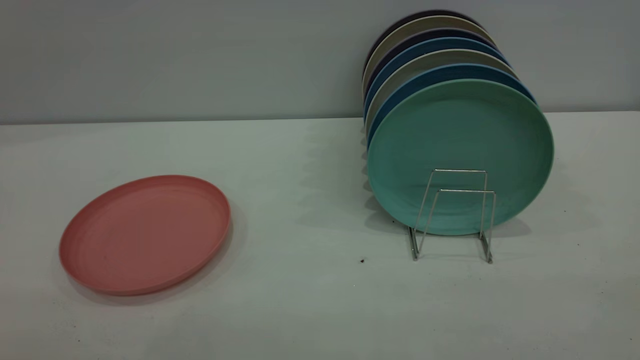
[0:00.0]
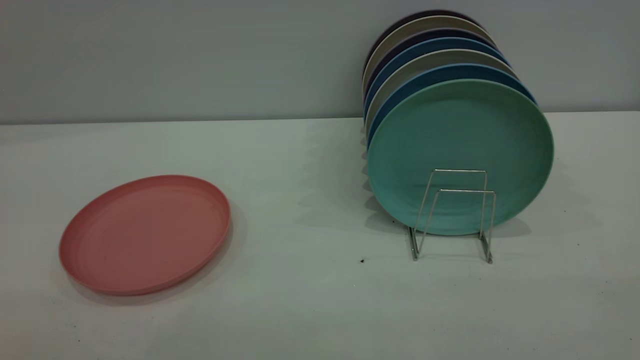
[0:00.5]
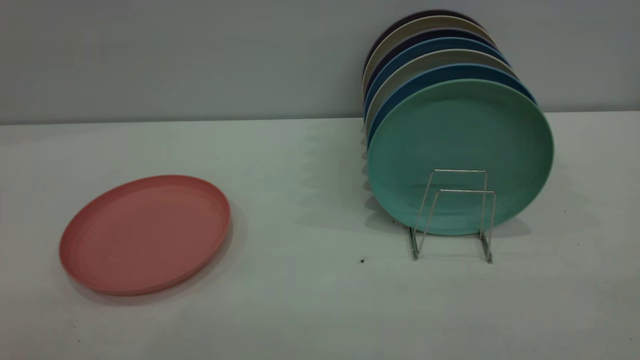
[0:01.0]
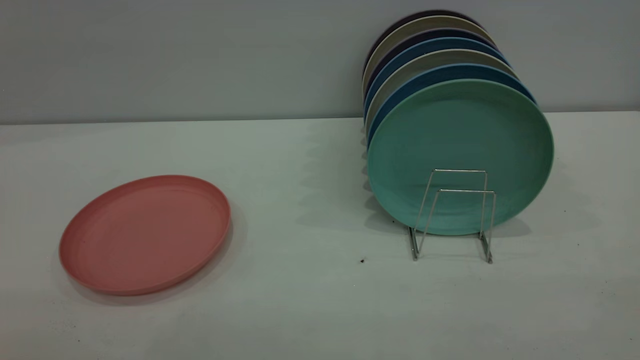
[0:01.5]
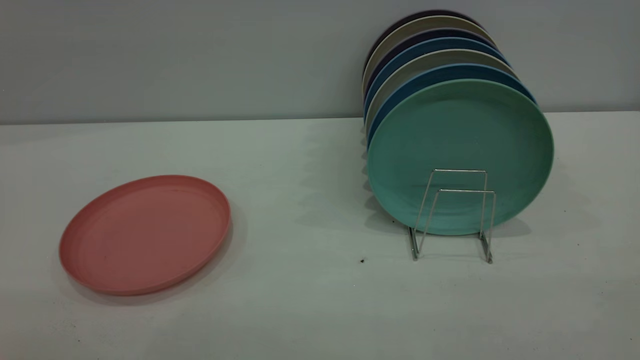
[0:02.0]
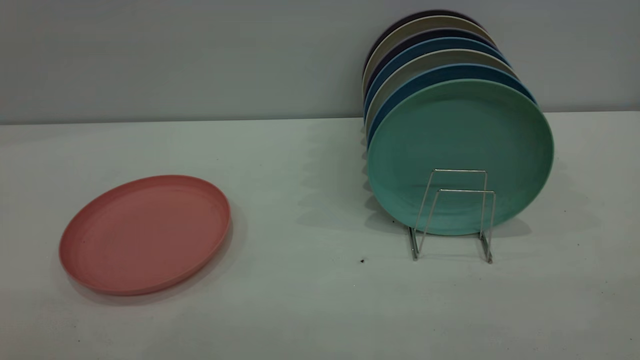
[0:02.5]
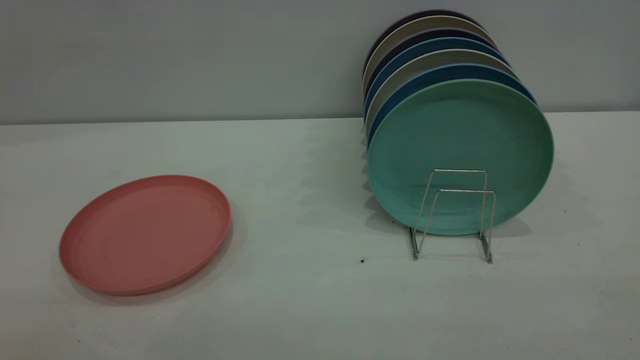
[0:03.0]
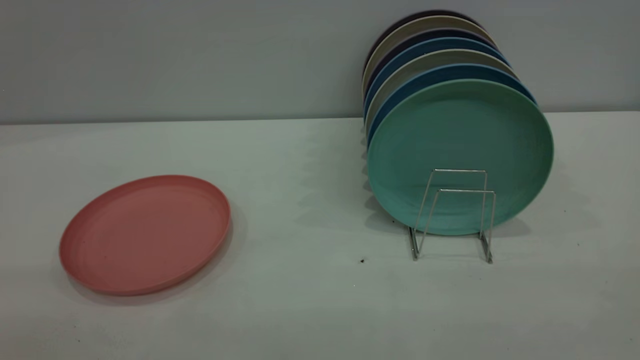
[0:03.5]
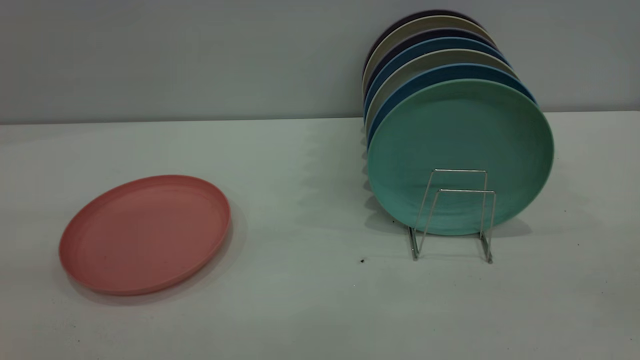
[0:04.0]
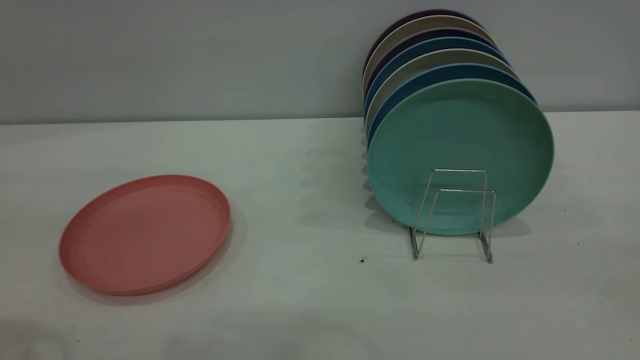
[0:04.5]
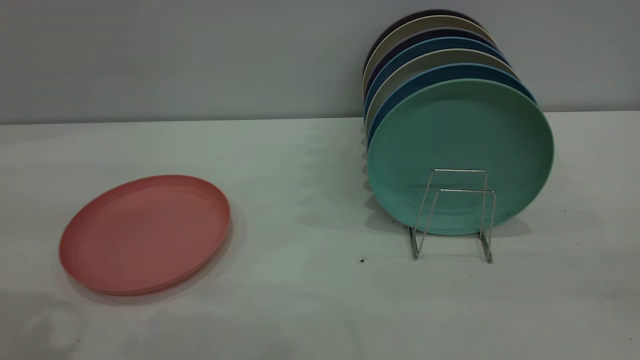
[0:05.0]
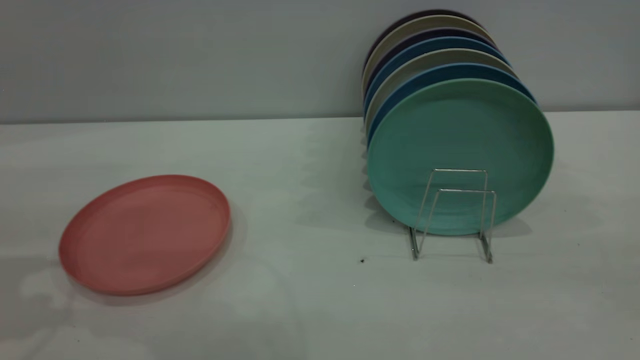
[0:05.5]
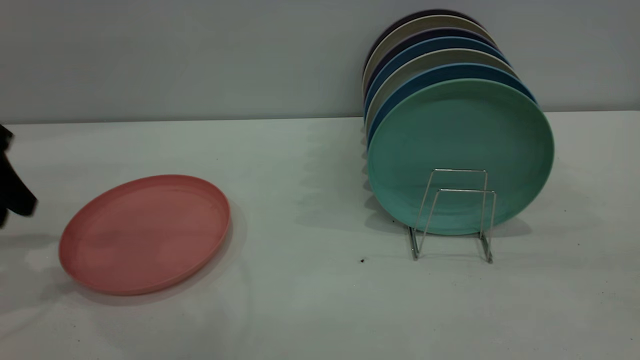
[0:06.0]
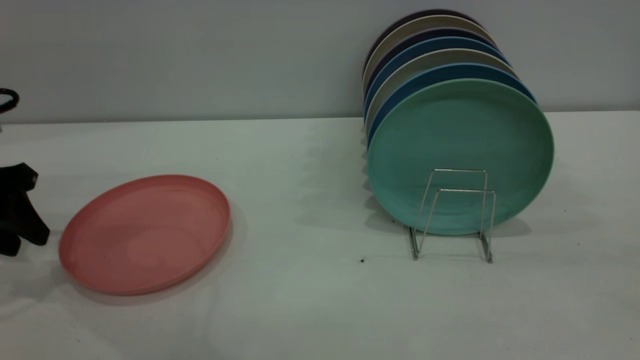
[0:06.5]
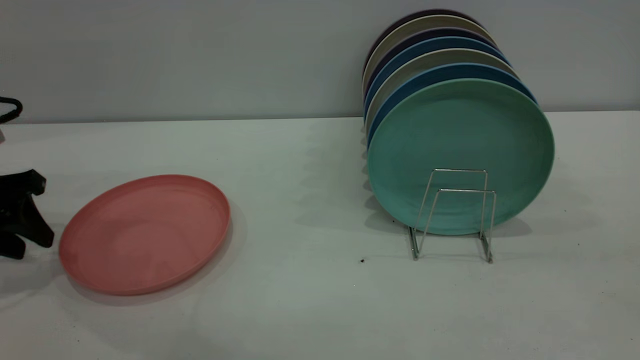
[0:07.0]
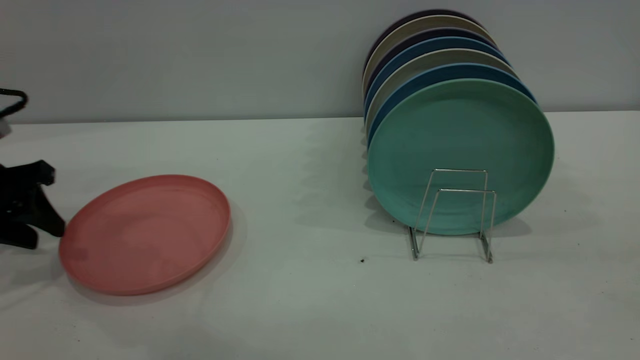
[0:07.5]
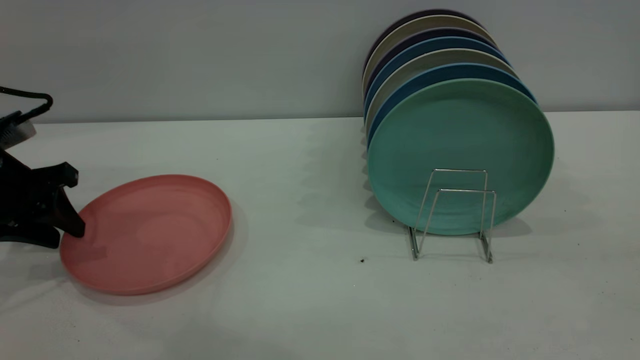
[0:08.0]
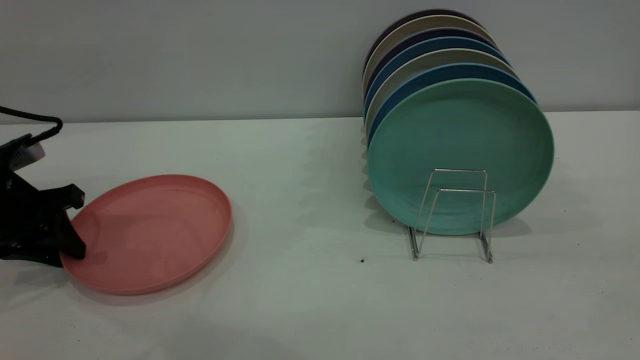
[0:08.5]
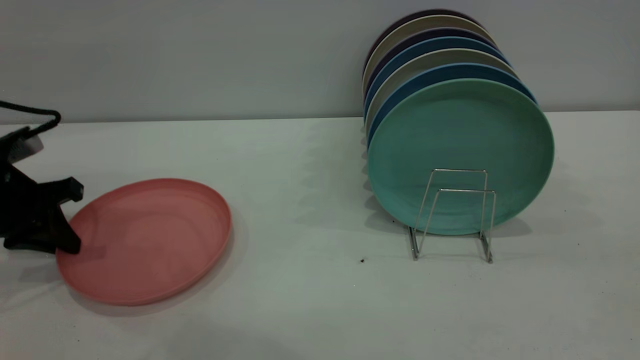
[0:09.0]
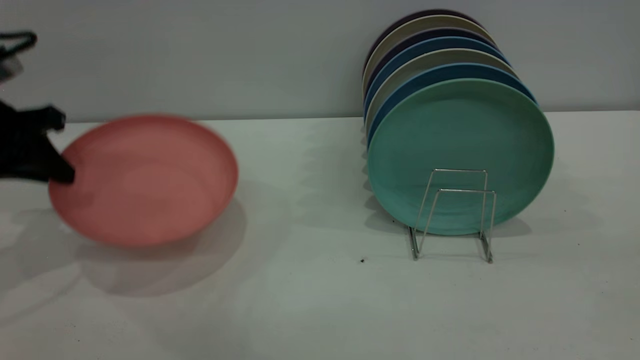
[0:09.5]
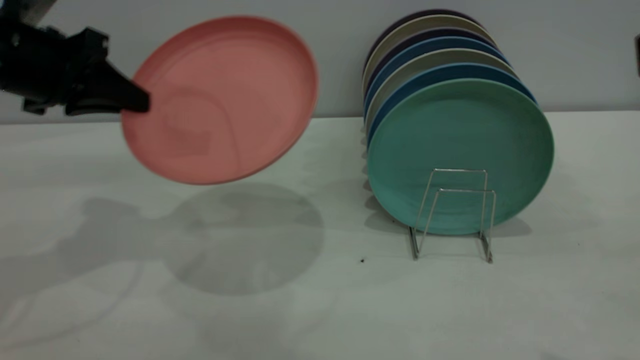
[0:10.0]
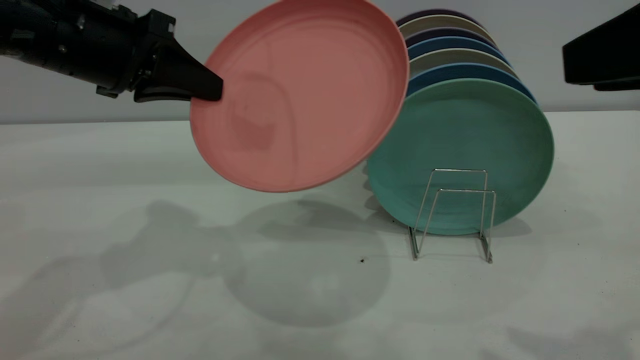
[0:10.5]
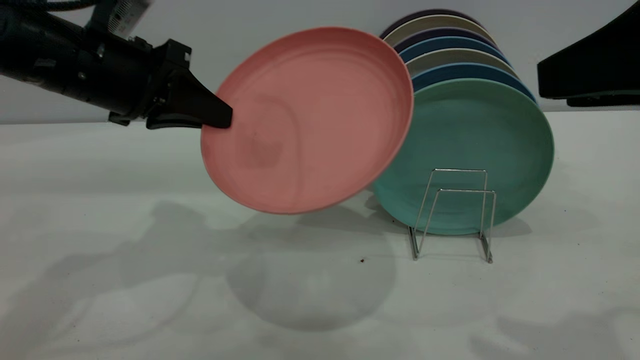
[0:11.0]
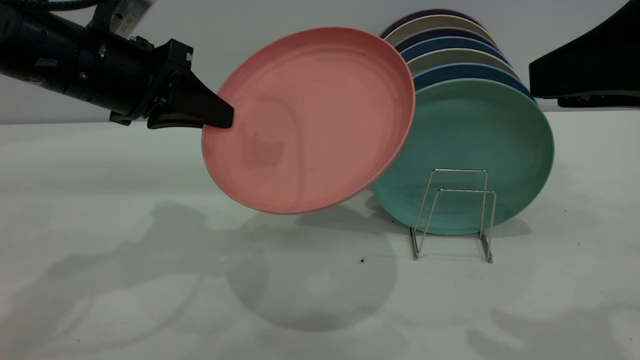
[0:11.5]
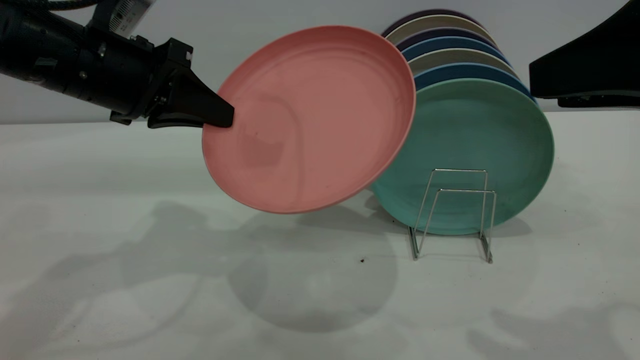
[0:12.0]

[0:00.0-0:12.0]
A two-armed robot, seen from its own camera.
Task of the whole recording: put the plate on the plate rack.
Step, 0:00.0 to 0:09.0: Pick up the plate with the left gripper.
0:00.0 to 0:02.0: Both grippers stay about where they are.
0:04.0 to 0:06.0: The left gripper heads forward and downward, covering some 30 cm.
0:06.0 to 0:08.0: The left gripper moves downward, approximately 5 cm.
0:08.0 to 0:10.0: The left gripper goes approximately 15 cm upward and to the right, and closes its fingers.
0:10.0 to 0:12.0: The left gripper travels to the right by roughly 5 cm; the right gripper travels forward by about 5 cm.

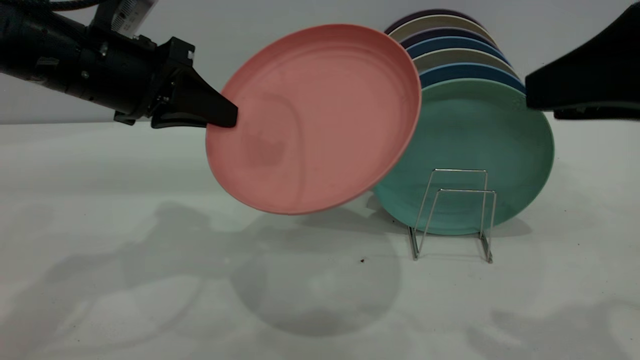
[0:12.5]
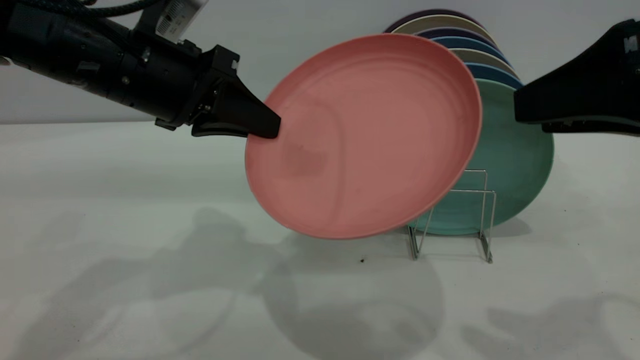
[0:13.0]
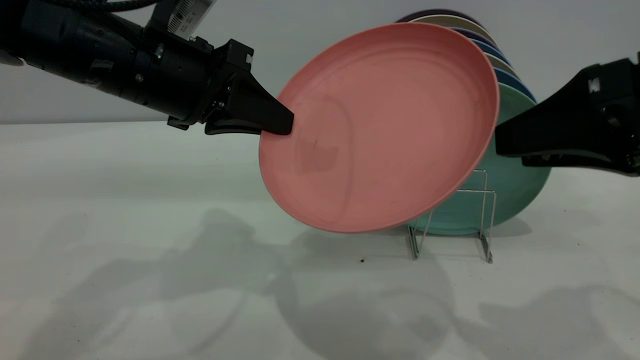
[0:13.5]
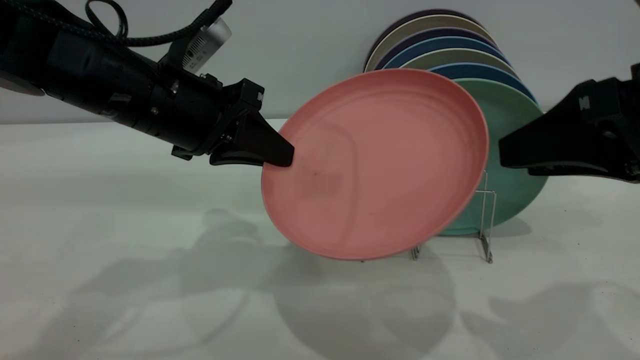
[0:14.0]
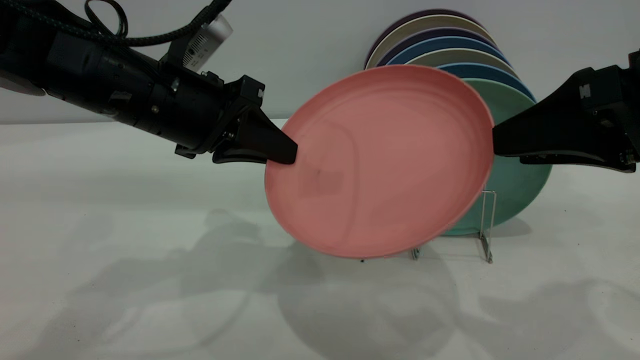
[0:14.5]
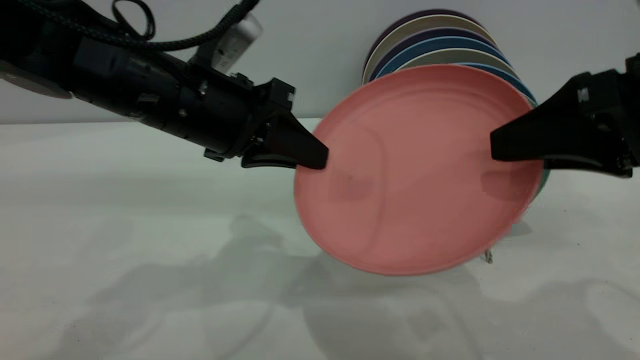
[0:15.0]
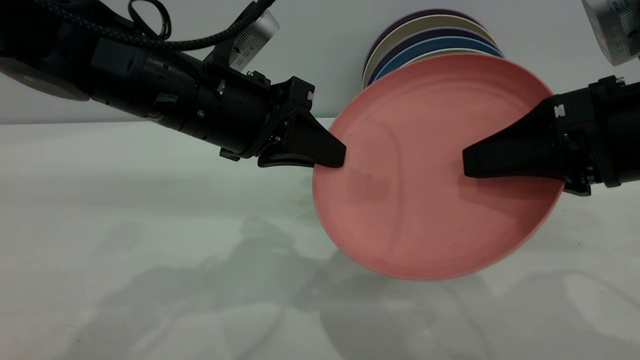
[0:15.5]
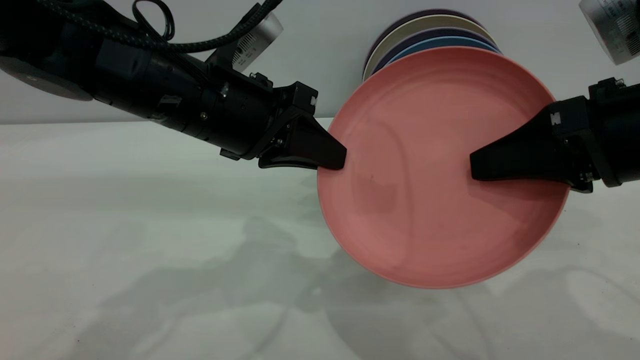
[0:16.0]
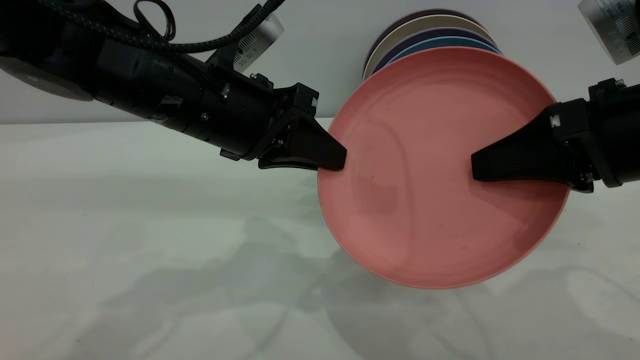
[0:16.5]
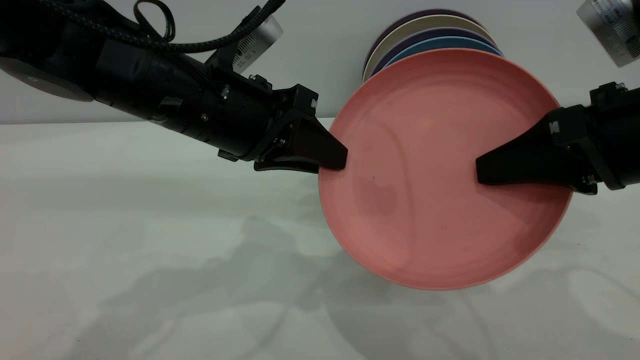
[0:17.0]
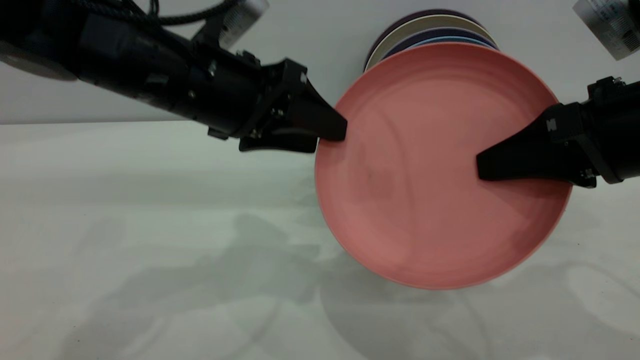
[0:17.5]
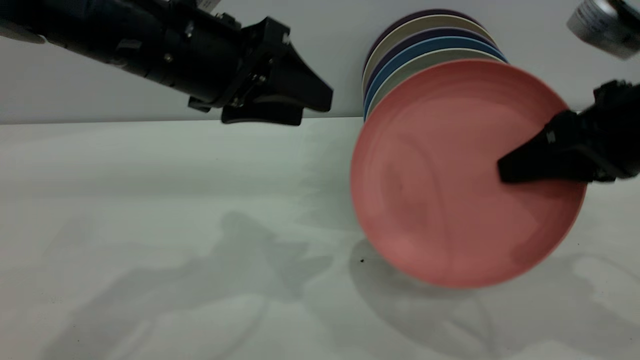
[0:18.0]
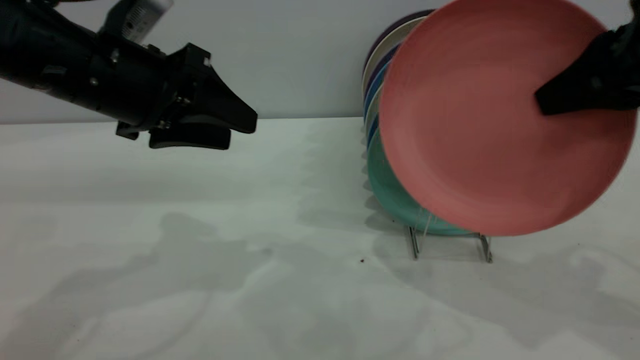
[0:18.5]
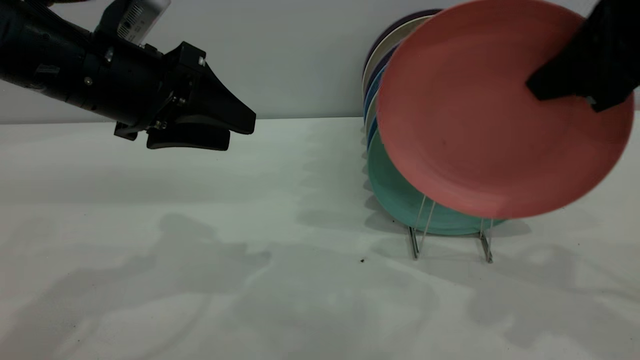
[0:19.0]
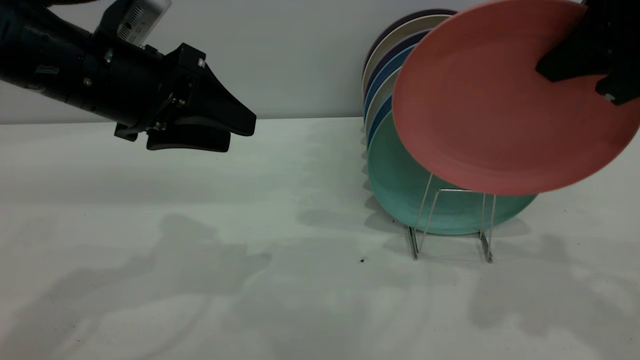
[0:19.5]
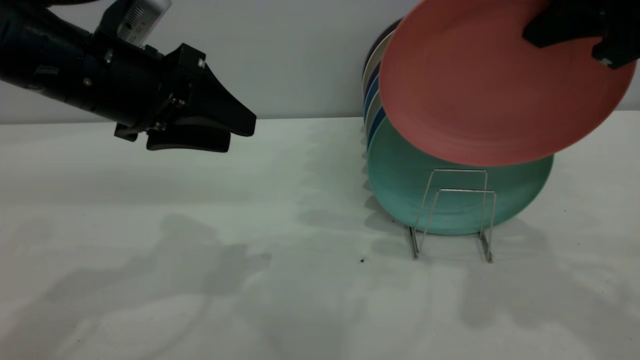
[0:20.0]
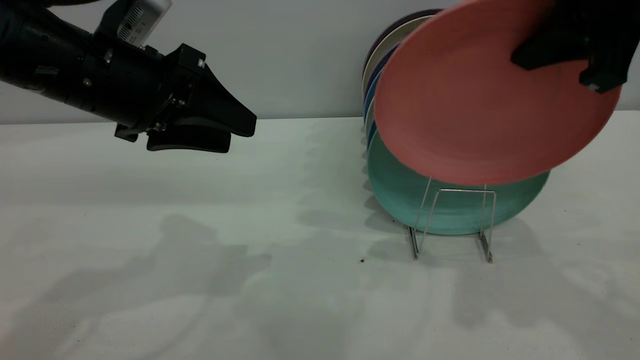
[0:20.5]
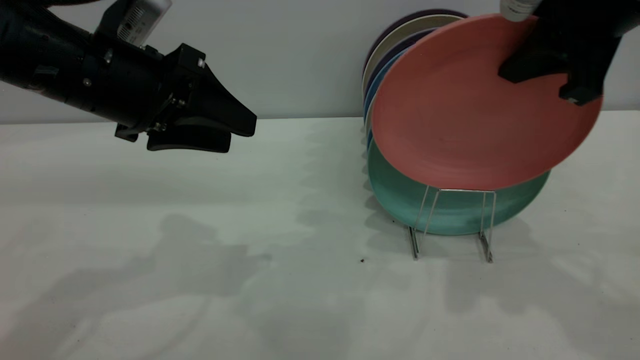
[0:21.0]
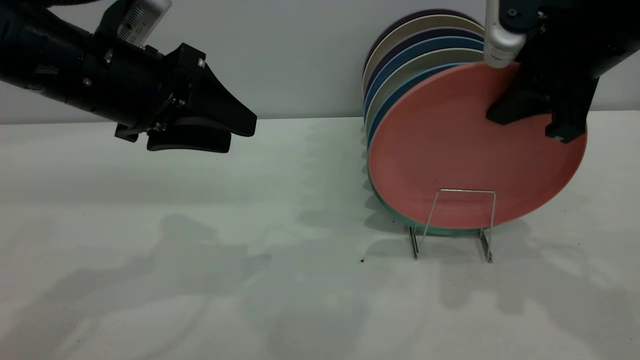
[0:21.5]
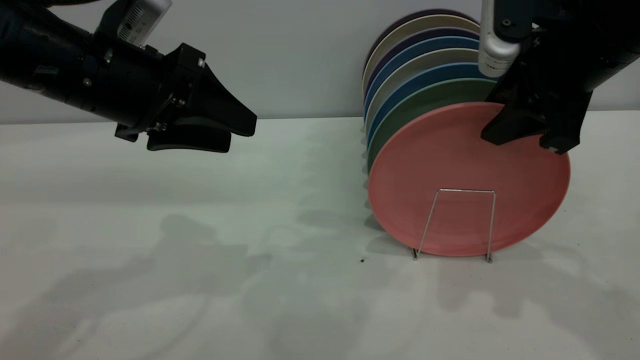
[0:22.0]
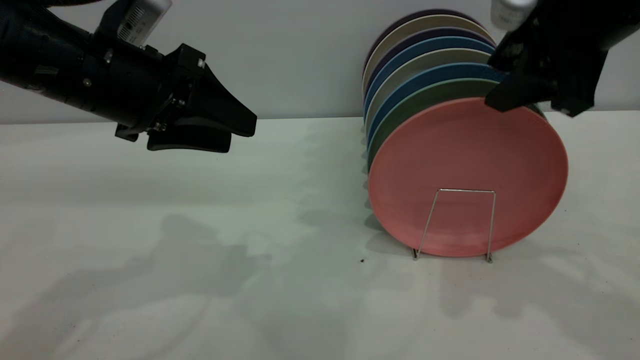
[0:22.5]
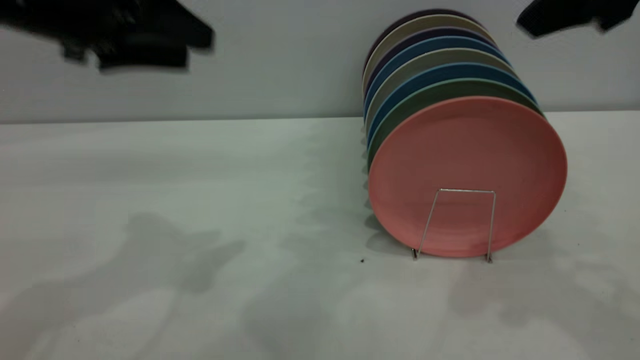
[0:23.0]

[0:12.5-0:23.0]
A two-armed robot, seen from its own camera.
Task of the whole recording: put the plate on the plate rack.
Step, 0:12.5 to 0:17.5: Pass the plate from the left gripper to the right gripper.
Step, 0:18.0 to 0:22.5: Place the plate on the shelf.
0:12.5 to 0:14.5: The right gripper shifts by some 5 cm. Meanwhile the left gripper moves to the right, about 5 cm.
0:14.5 to 0:16.5: The right gripper closes up.
0:16.5 to 0:19.0: The left gripper goes roughly 10 cm to the left, and opens its fingers. The right gripper shifts roughly 10 cm upward.
0:21.0 to 0:23.0: Both grippers move upward, approximately 5 cm. The right gripper opens up.
